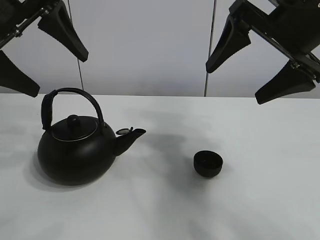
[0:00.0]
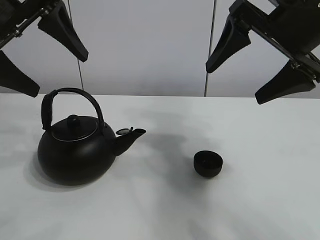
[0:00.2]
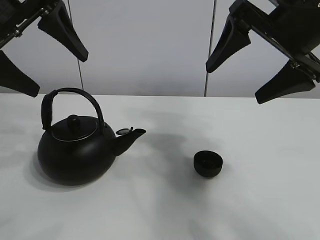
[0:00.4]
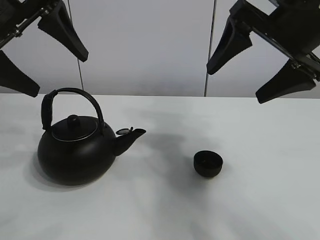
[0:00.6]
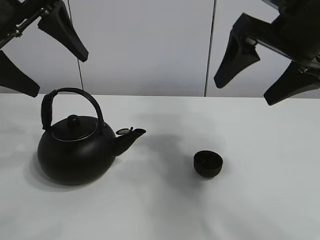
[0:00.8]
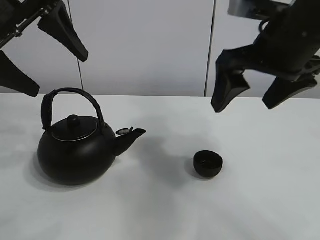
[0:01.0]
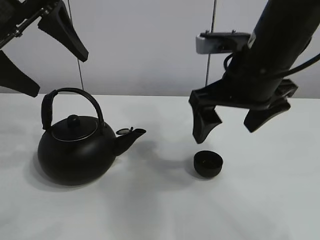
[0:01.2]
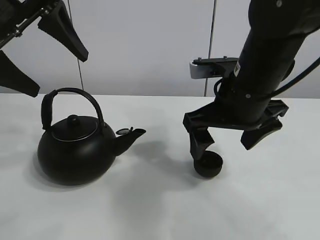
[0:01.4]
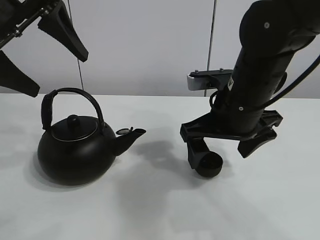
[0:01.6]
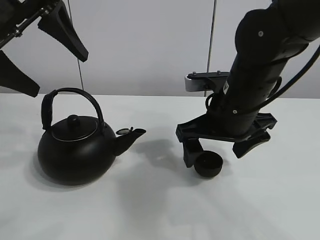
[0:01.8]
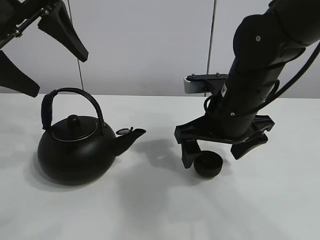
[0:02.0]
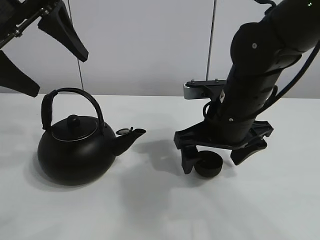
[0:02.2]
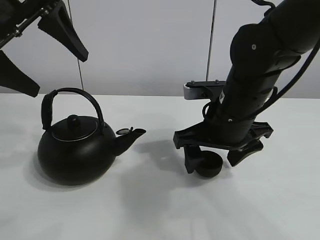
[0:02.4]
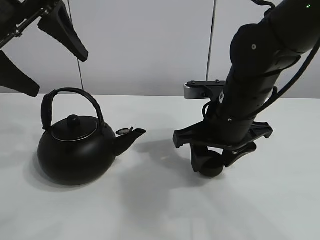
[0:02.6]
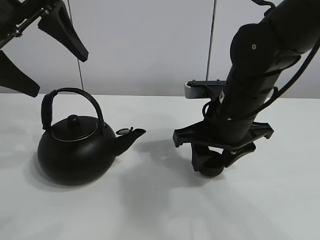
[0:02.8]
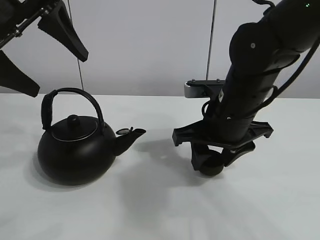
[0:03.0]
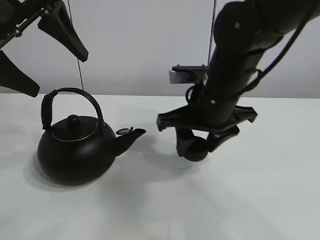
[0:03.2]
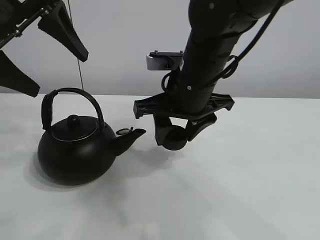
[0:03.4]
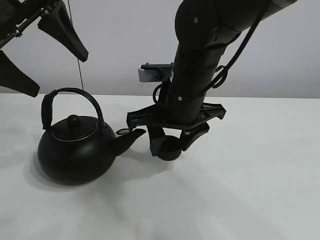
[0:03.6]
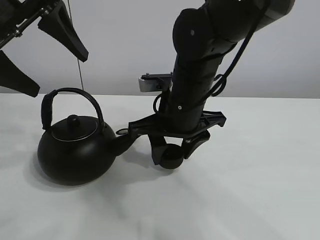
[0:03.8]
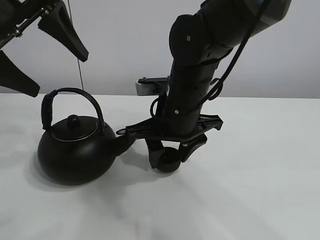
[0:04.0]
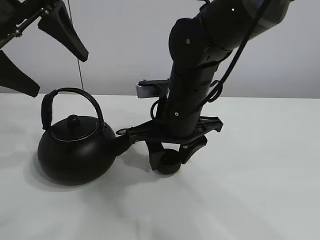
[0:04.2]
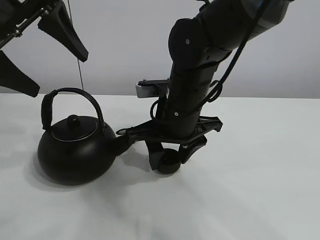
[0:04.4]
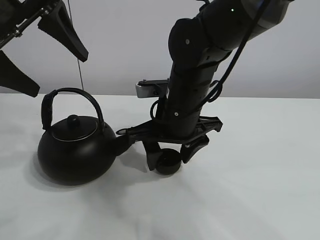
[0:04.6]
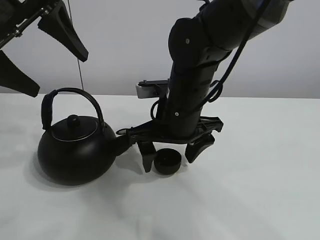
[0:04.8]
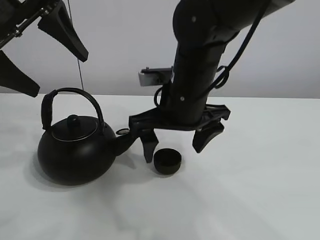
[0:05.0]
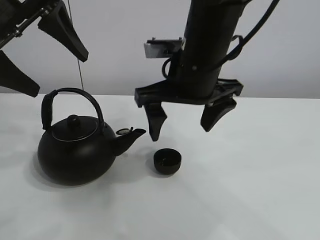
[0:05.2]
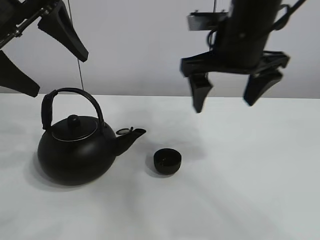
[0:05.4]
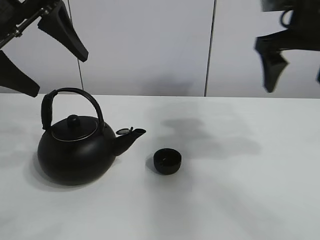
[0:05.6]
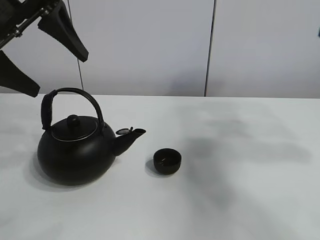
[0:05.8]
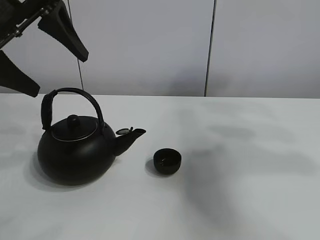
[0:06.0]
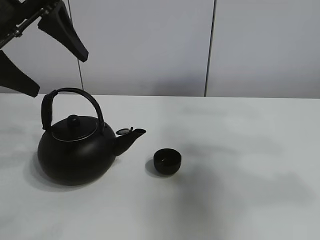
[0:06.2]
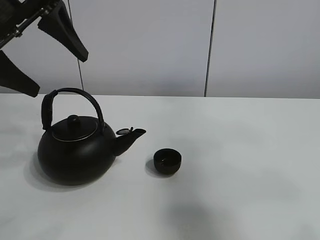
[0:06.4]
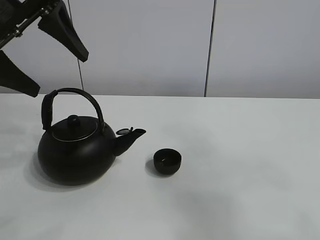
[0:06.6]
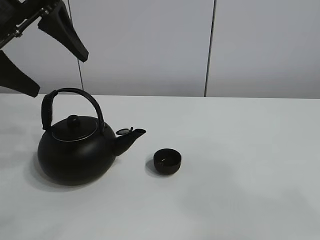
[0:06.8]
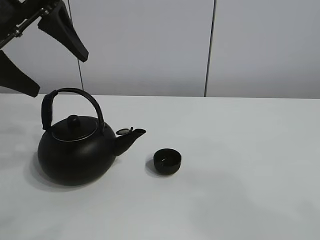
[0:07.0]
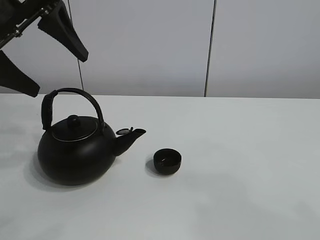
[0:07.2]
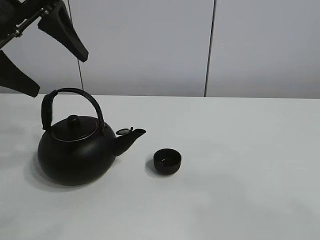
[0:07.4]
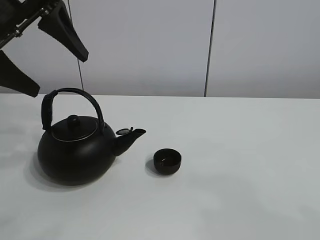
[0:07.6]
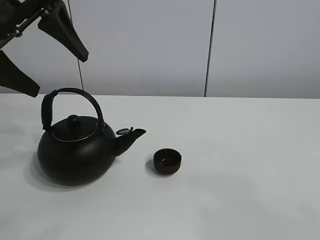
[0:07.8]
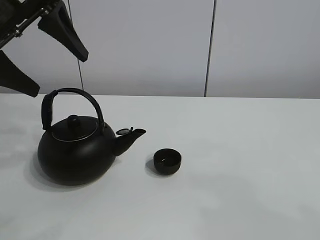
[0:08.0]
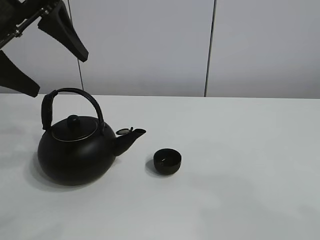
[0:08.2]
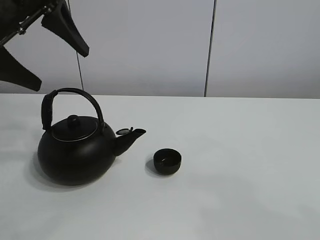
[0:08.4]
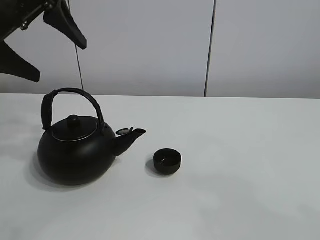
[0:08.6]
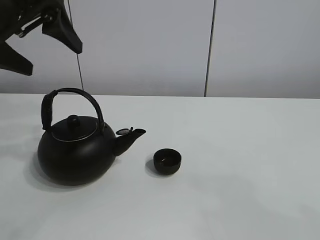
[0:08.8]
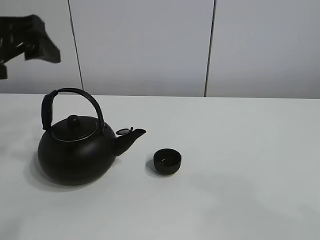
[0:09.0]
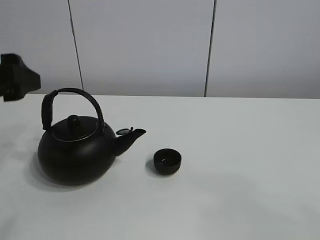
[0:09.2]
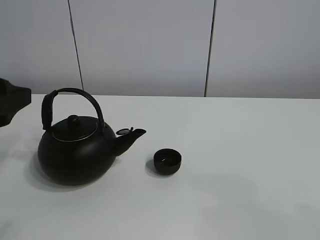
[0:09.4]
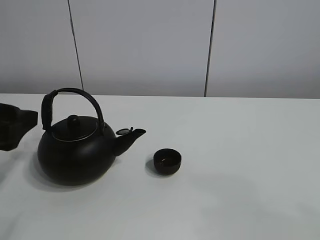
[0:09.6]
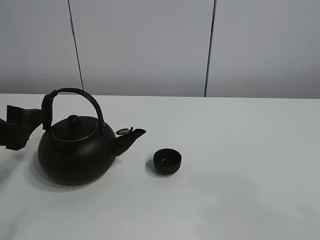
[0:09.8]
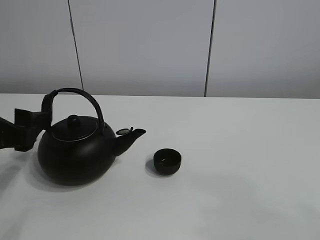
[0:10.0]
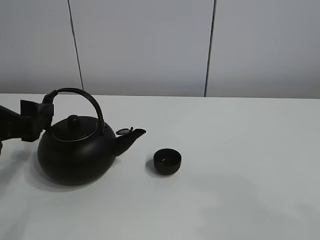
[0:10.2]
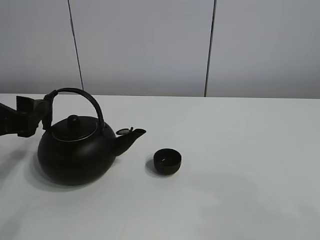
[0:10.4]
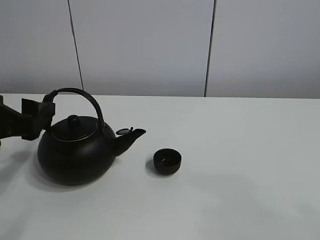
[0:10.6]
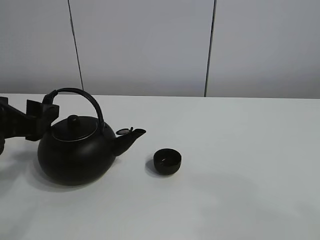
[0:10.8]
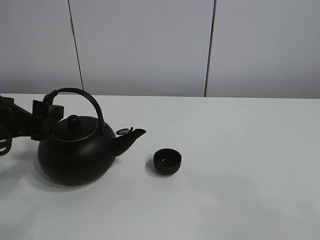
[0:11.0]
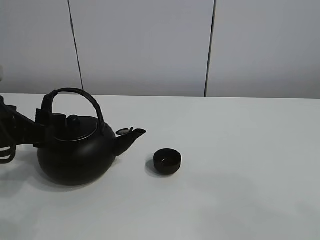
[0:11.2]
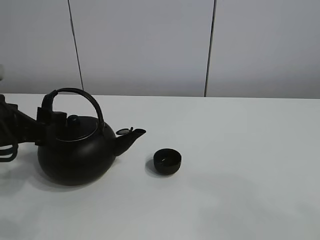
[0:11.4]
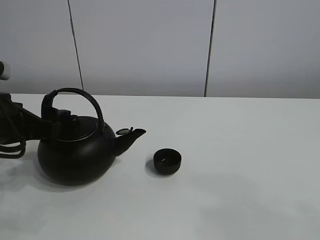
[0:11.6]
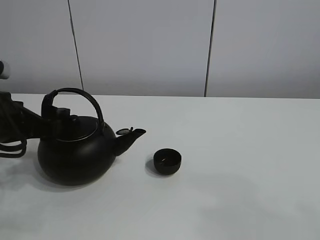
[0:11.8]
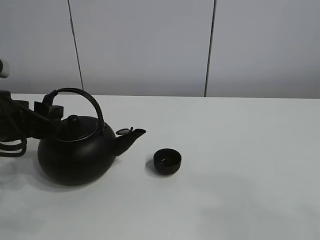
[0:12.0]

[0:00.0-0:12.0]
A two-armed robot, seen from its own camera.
Task of the whole recording: pour tea into the teacup.
Step, 0:00.0 to 0:03.0: Pick up the teacup with the right gripper.
Step, 0:03.2 to 0:04.6: Place the teacup in the center of view with the right gripper.
0:01.6 to 0:03.0: The right gripper closes up.
0:03.0 to 0:04.4: The right gripper shifts about 5 cm to the left.
0:04.4 to 0:06.0: The right gripper moves to the right and upward, about 35 cm, and opens up.
0:06.0 to 0:07.6: The right gripper is displaced backward by about 30 cm.
0:07.6 to 0:09.0: The left gripper ends up roughly 5 cm from where it was.
0:09.0 to 0:10.4: The left gripper heads downward, covering some 10 cm.
0:10.4 to 0:12.0: The left gripper closes its fingers.

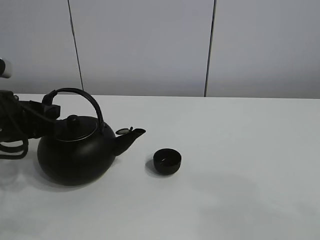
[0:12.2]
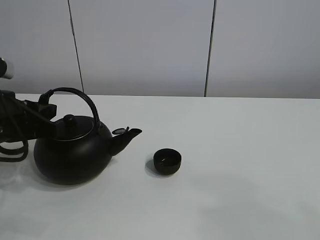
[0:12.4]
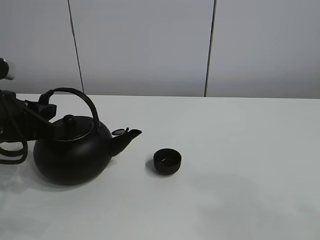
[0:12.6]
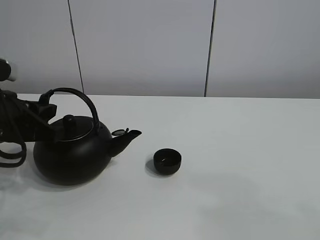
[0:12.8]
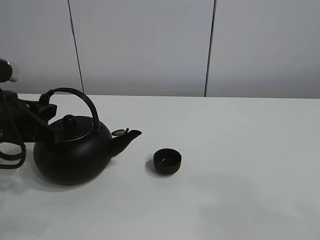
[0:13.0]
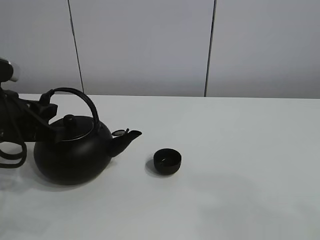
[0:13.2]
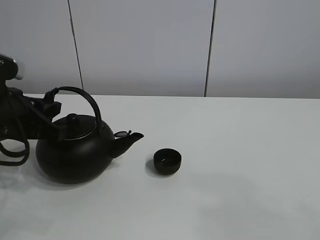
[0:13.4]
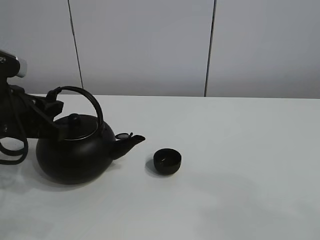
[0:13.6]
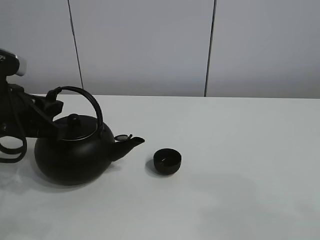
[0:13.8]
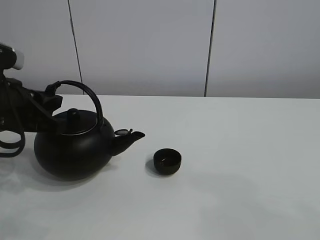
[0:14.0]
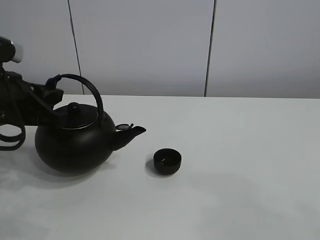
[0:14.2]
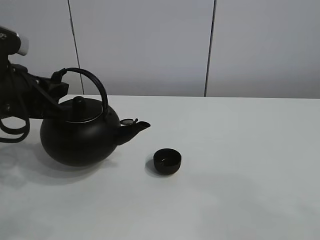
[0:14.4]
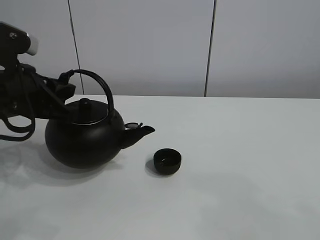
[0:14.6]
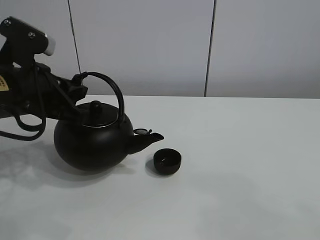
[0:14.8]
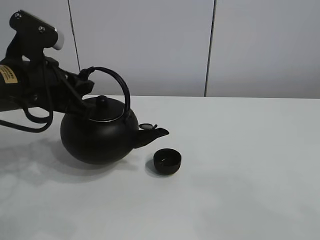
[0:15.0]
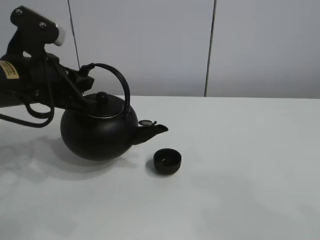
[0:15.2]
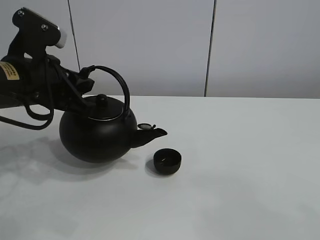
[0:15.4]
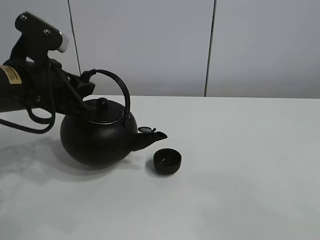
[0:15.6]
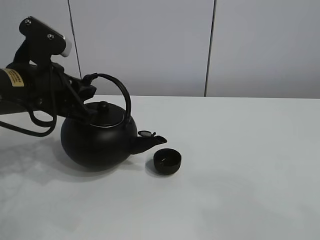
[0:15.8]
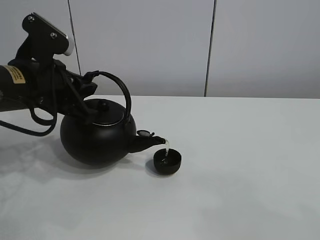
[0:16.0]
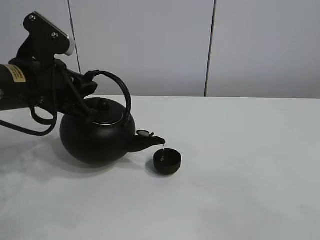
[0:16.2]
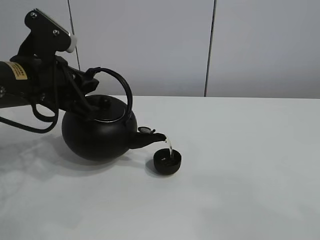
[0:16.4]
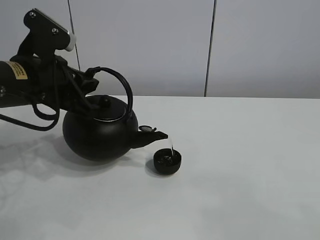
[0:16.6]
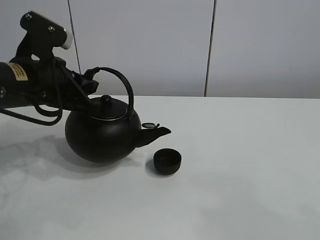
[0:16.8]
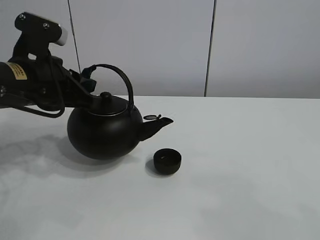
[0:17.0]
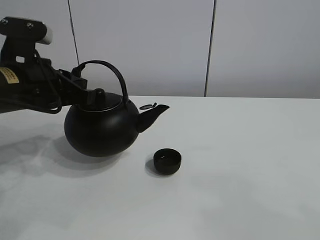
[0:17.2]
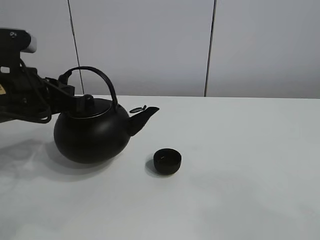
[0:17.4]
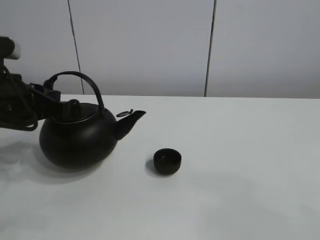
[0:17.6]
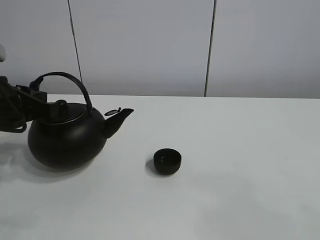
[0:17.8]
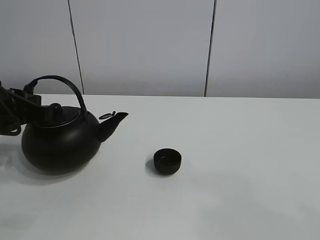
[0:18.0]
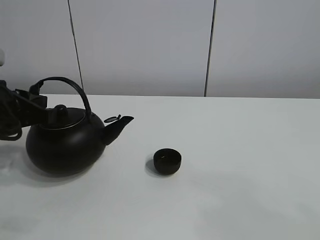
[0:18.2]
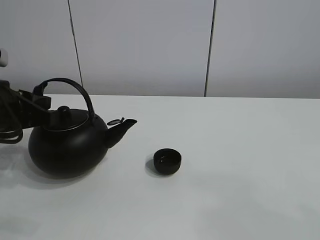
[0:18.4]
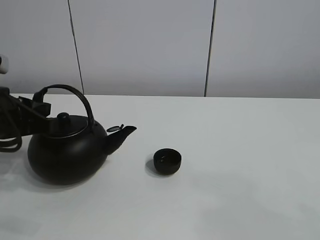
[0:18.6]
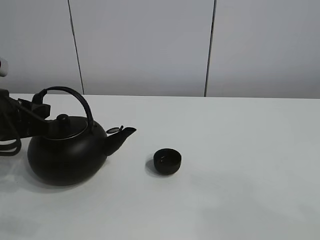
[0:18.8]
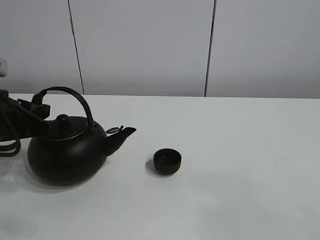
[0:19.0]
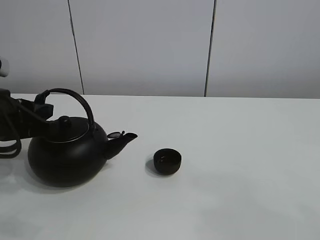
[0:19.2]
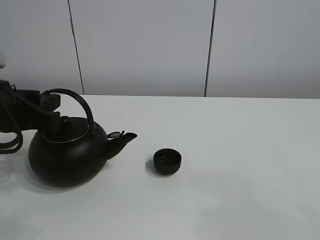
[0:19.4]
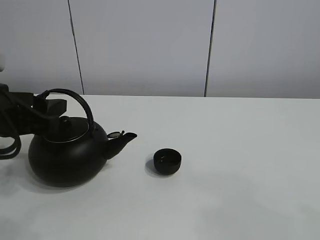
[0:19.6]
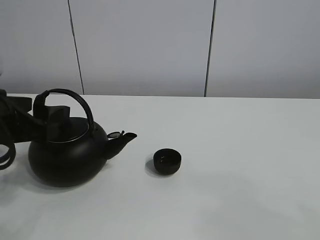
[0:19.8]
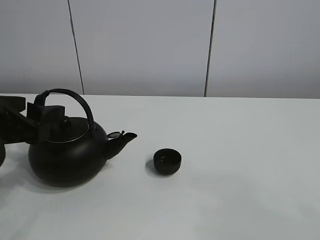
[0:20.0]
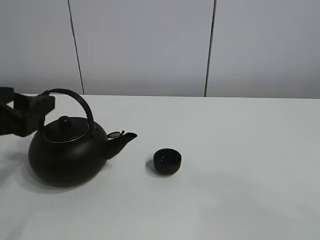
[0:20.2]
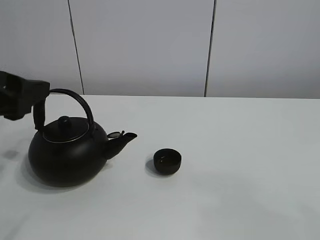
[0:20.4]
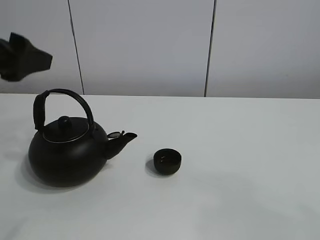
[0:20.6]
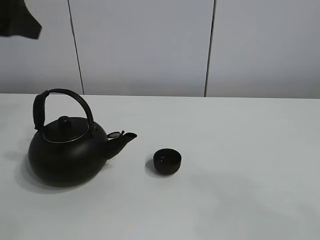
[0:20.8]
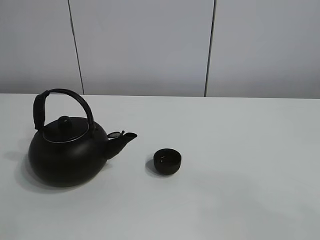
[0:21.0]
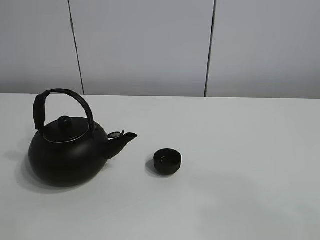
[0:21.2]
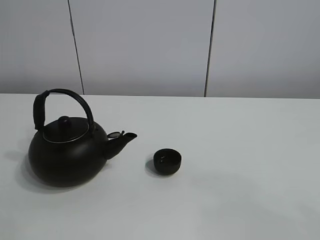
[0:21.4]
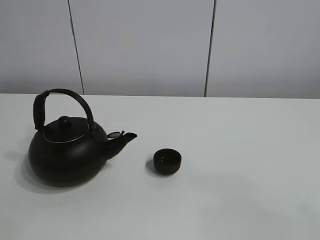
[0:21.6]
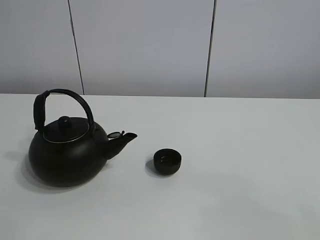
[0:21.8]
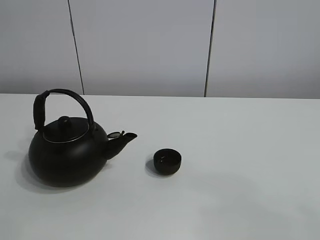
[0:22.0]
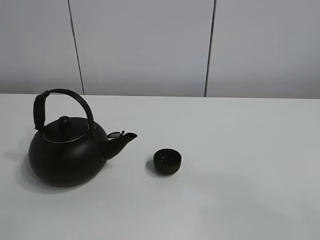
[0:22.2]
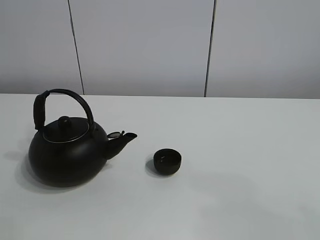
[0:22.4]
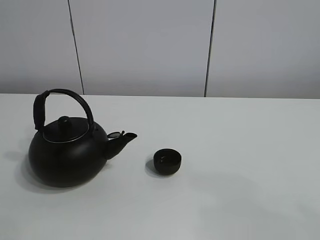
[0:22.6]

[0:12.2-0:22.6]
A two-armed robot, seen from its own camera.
Task of the whole recording: pour tea into the teacup.
Step, 0:14.2 to 0:16.8: Pour tea into the teacup with the left gripper.
0:12.2 to 0:13.6: There are only small adjustments of the grippers.
0:13.6 to 0:15.2: The left gripper moves roughly 5 cm.
0:15.2 to 0:16.6: The grippers stay close to where they were, moving slightly.
0:16.6 to 0:18.2: The left gripper goes roughly 5 cm to the left.
0:18.2 to 0:19.6: The left gripper opens its fingers.
0:19.6 to 0:21.2: The left gripper goes roughly 25 cm upward and to the left.
